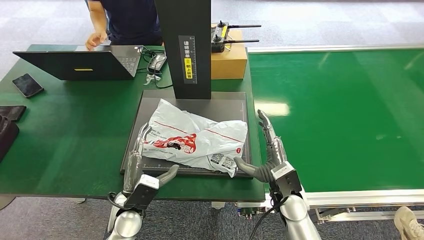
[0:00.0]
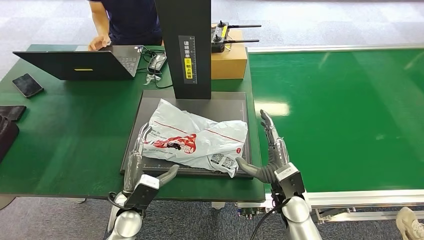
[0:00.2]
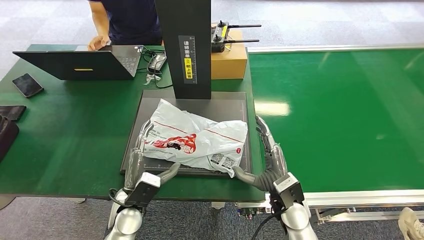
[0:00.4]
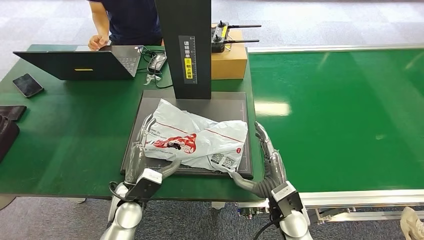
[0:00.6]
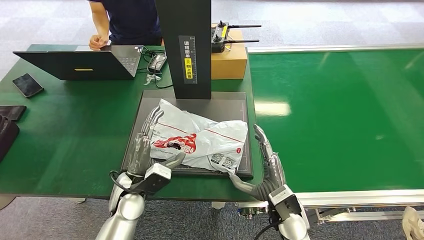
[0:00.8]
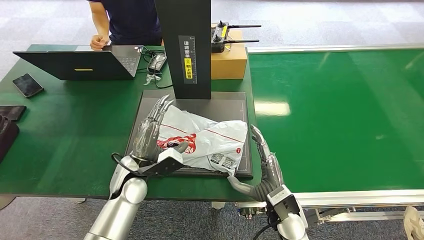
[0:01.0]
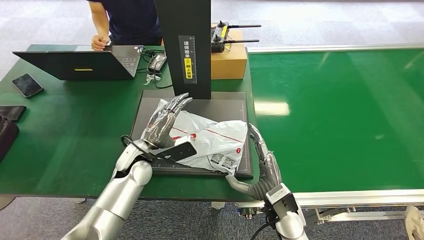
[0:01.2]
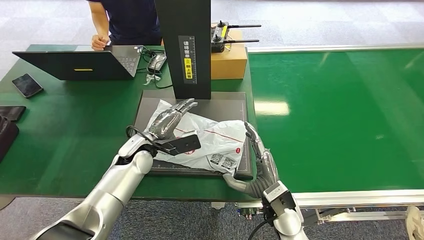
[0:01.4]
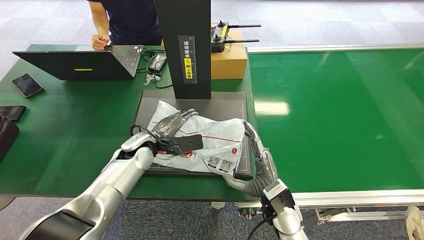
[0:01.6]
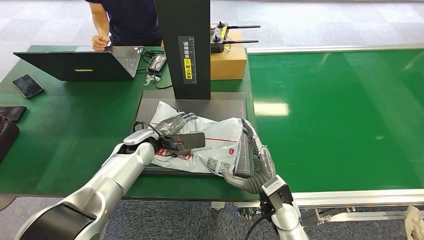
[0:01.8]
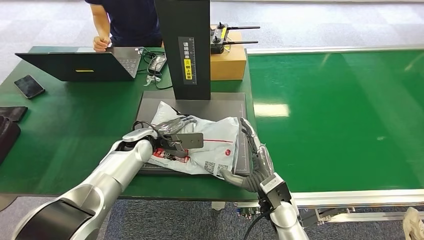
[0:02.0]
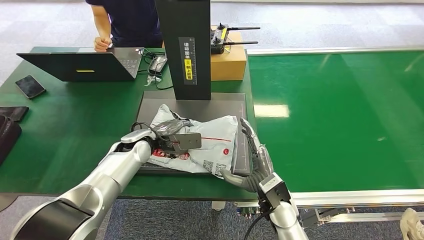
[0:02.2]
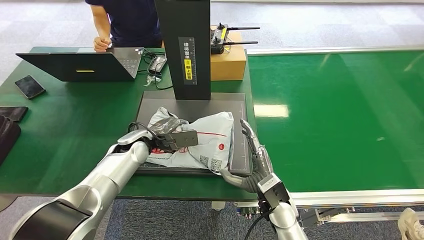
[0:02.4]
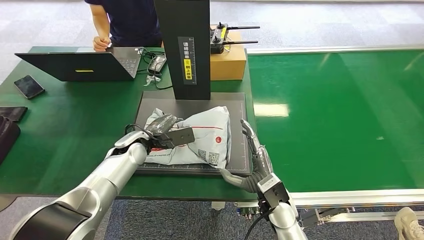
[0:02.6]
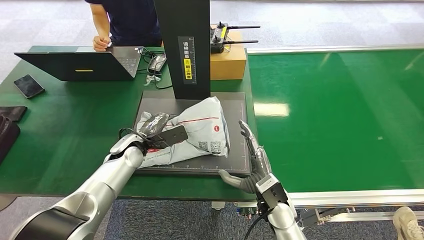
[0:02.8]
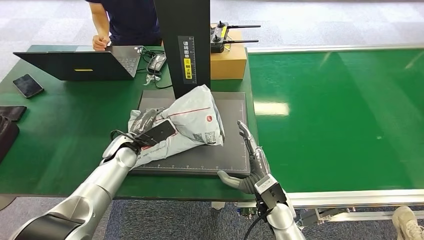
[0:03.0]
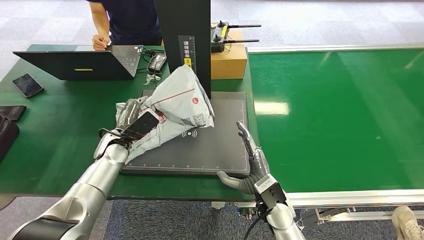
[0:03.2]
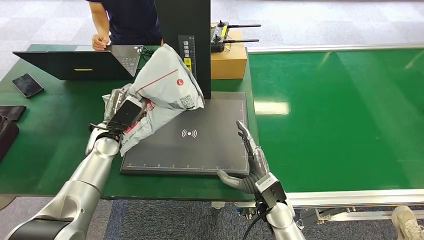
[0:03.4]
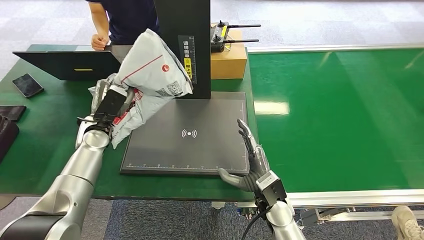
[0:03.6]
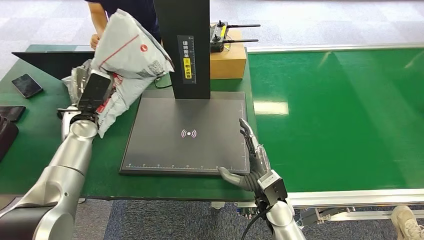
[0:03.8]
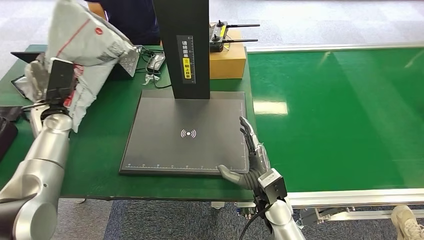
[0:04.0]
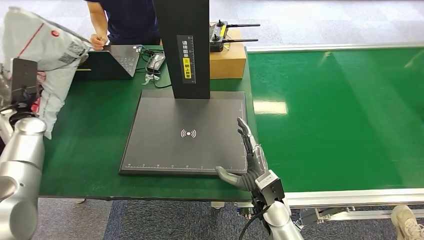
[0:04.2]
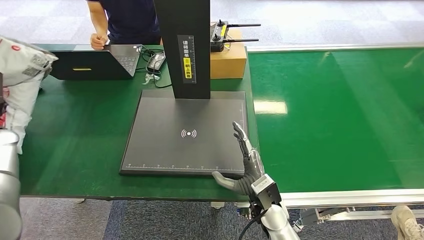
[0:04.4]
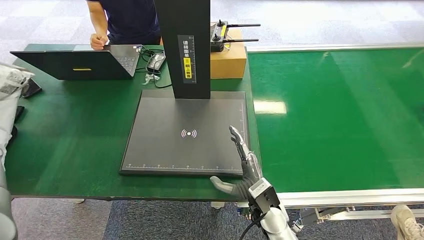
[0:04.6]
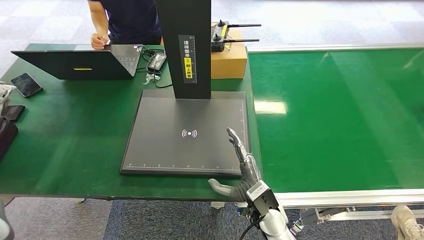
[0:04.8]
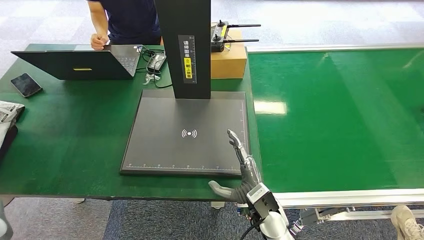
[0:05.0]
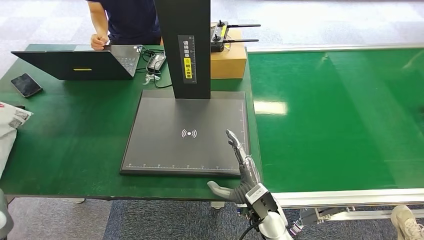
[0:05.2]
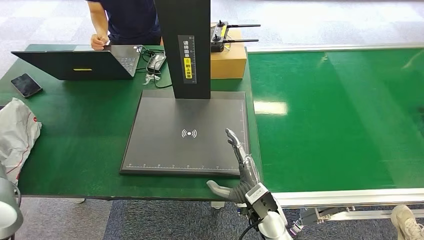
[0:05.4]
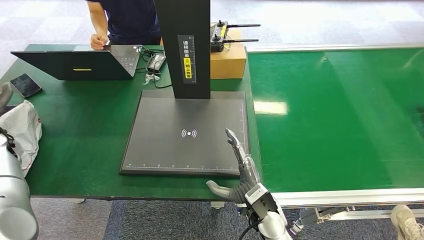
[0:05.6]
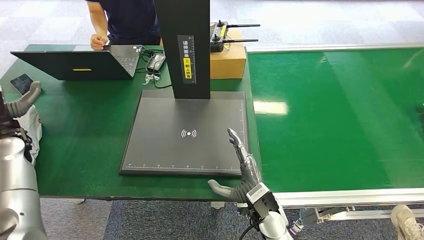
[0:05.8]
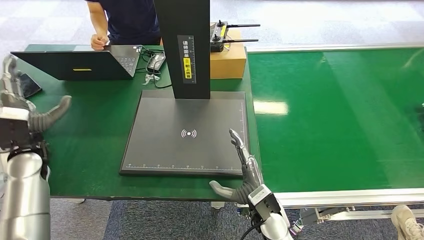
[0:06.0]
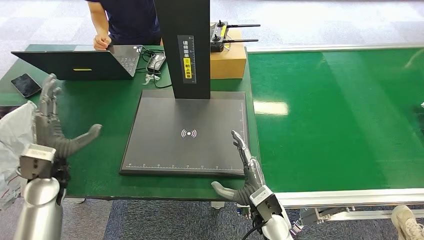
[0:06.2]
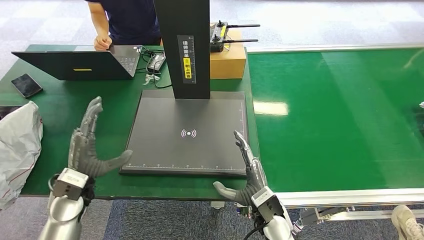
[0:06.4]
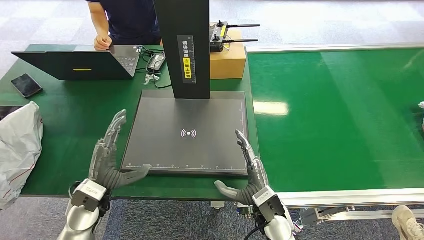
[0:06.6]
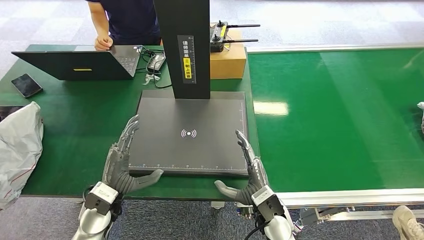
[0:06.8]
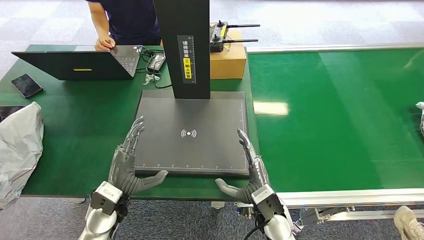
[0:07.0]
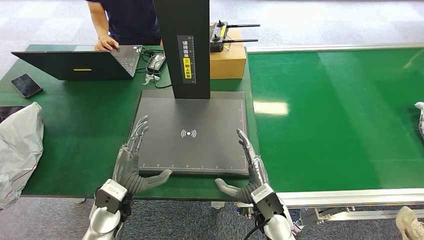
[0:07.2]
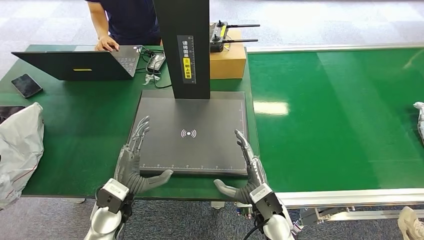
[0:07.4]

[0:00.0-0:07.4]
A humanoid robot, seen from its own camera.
Step, 0:00.0 to 0:04.0: Pick up the package from the inbound machine.
Step, 0:04.4 to 0:07.4: Place the package into the parcel locker.
0:00.0 to 0:01.4: The left hand goes about 15 cm forward.
0:01.4 to 0:03.0: The left hand is displaced to the left by roughly 5 cm.
0:04.4 to 0:06.0: The left hand moves to the right, about 10 cm.
0:06.0 to 0:07.4: The left hand travels to the right, backward and downward by approximately 25 cm.
